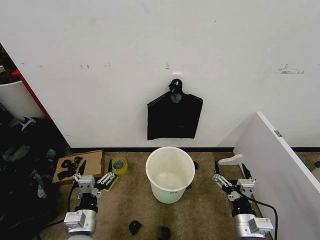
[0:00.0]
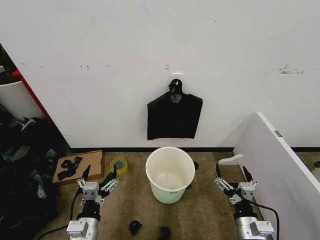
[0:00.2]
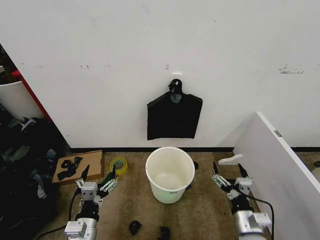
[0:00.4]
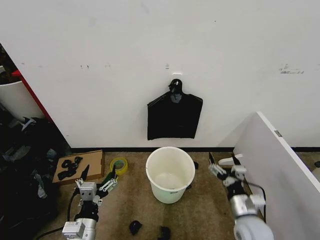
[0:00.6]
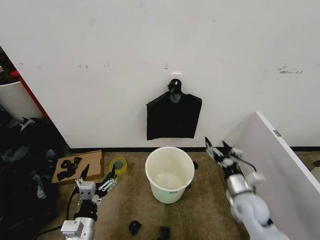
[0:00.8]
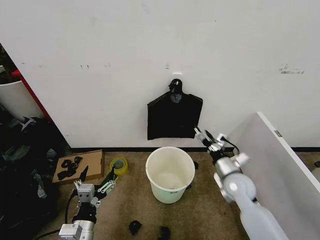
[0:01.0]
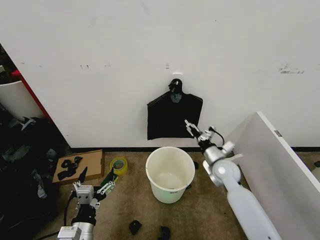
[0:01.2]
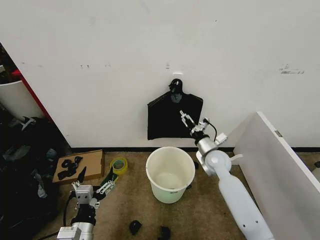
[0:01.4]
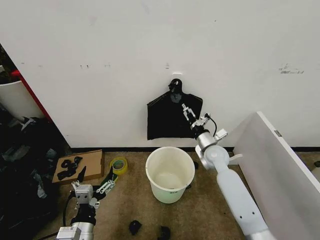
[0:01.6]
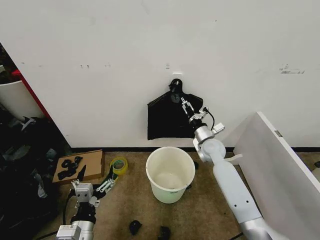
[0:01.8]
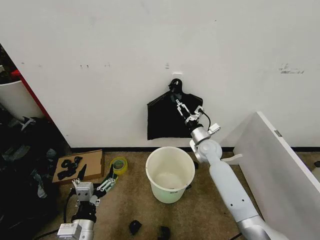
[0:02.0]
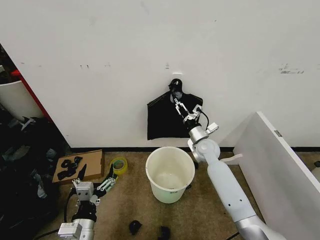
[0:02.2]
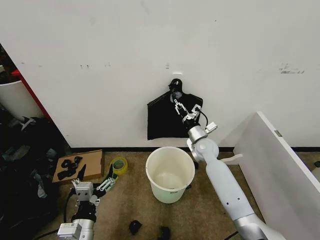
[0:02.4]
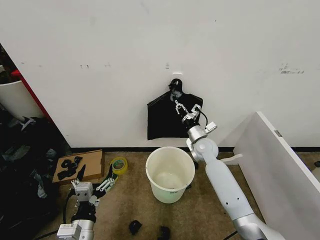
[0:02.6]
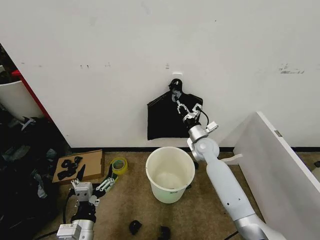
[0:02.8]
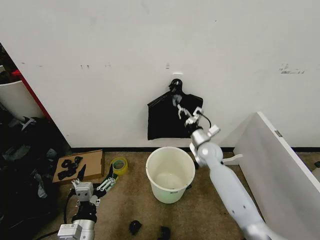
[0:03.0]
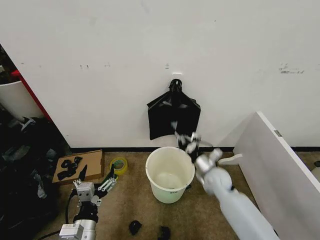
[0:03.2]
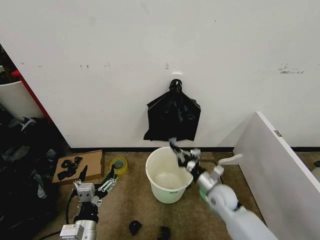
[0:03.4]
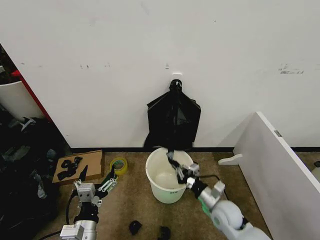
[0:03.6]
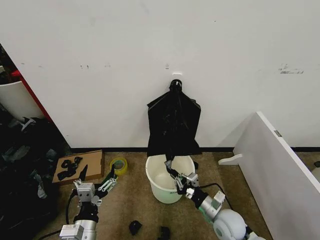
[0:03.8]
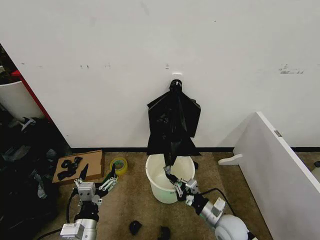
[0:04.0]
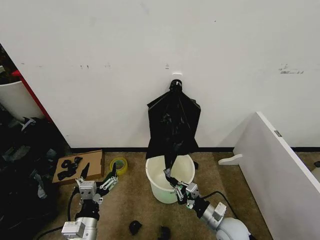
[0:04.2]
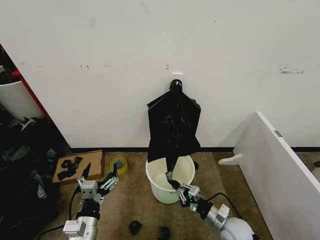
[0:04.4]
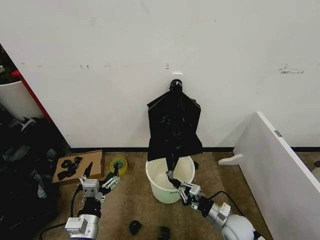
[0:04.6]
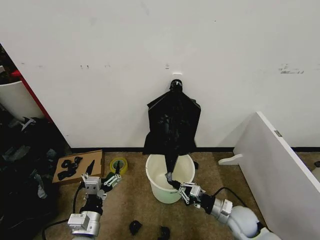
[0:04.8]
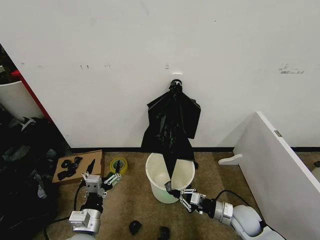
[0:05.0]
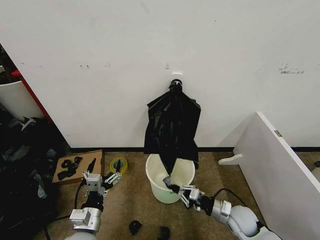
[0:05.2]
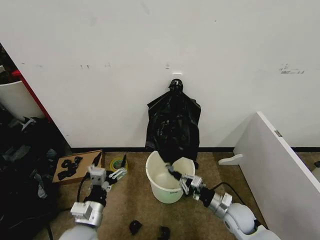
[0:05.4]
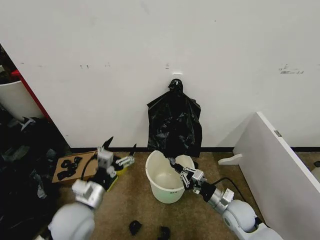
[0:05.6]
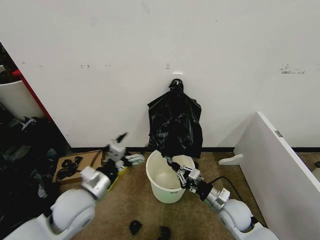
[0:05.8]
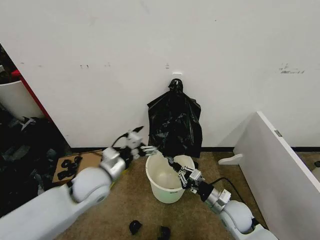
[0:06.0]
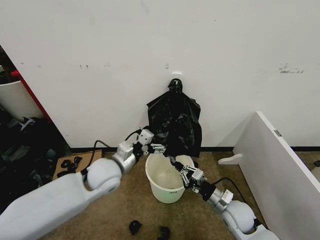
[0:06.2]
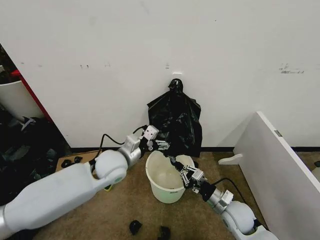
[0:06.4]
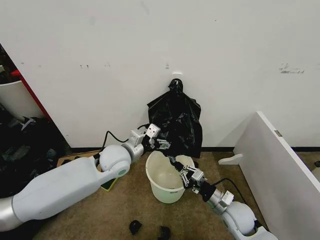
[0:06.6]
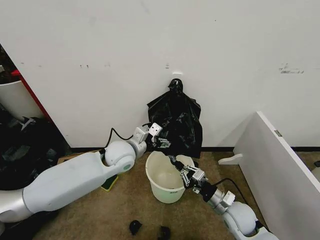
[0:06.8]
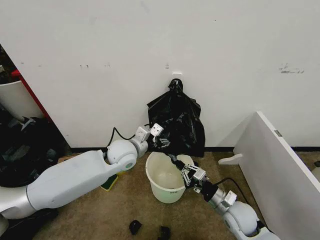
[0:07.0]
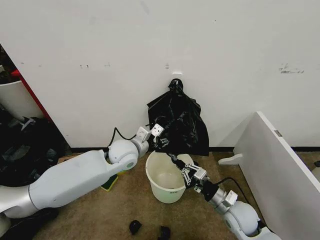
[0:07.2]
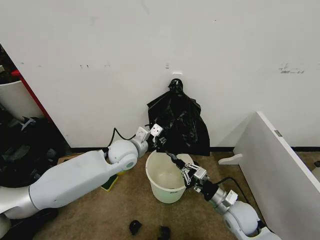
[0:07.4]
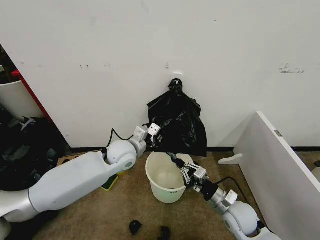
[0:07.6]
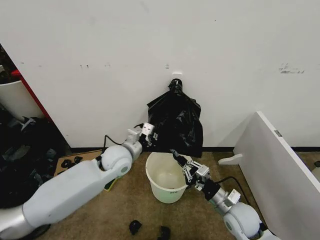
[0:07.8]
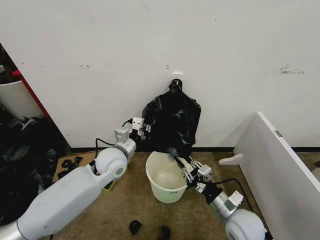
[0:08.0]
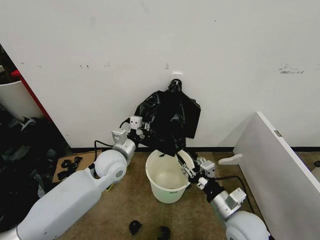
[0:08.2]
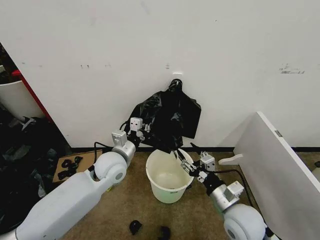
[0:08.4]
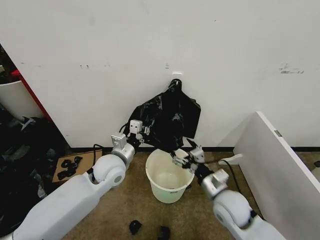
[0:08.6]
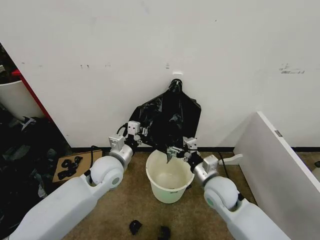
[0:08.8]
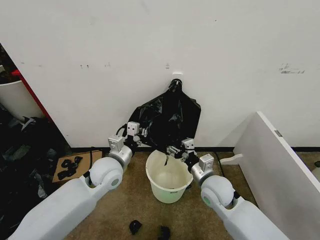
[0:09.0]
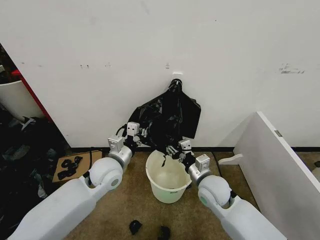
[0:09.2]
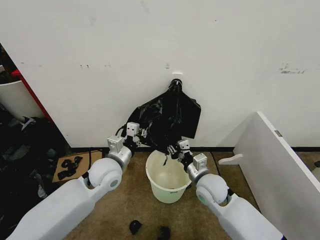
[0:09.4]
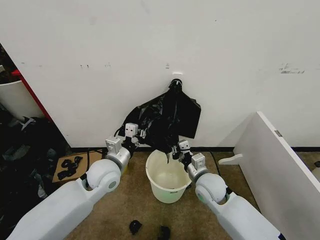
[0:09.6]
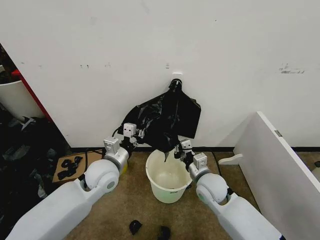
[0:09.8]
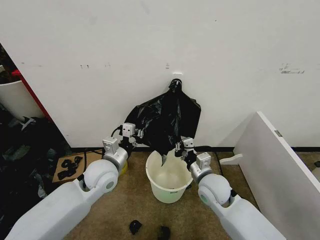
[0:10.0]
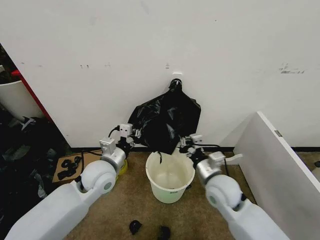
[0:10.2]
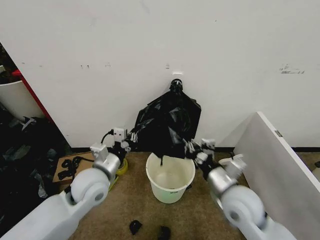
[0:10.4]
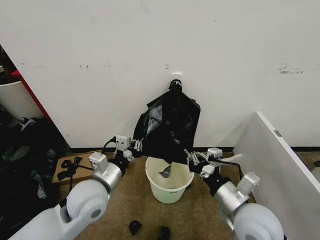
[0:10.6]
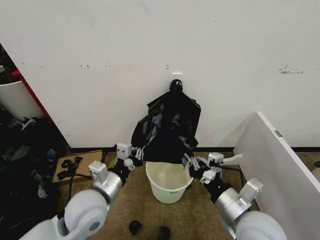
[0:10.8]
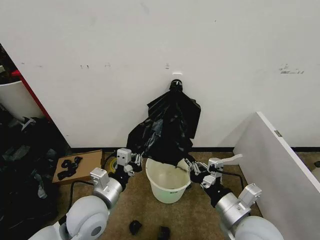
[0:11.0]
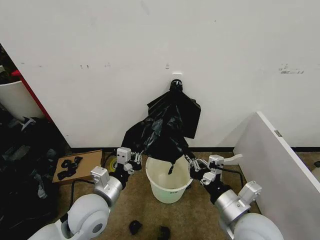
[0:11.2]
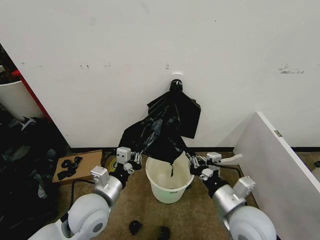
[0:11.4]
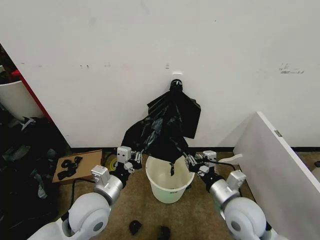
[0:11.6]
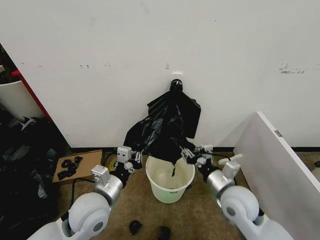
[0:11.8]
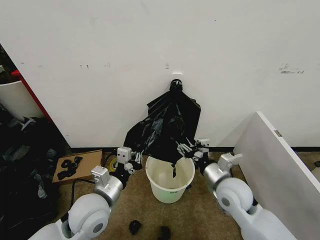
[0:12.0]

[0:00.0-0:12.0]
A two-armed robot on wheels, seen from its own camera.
Task of the whole recording: Place the garbage bag over the trash bin.
0:01.6 to 0:03.0: The right gripper closes.
0:03.0 to 0:04.4: The right gripper is displaced backward and downward by some 25 cm.
0:04.4 to 0:06.0: The right gripper shifts by some 5 cm; the left gripper travels forward and upward by approximately 20 cm.
0:06.0 to 0:07.6: The left gripper is displaced forward and to the right by about 15 cm, and closes.
0:07.6 to 0:09.0: The right gripper travels to the left, upward and forward by some 10 cm, and opens up, while the left gripper heads backward, covering some 5 cm.
0:09.0 to 0:10.4: The right gripper moves backward and upward, some 10 cm, and closes; the left gripper shifts some 5 cm backward.
0:10.4 to 0:12.0: The left gripper shifts some 5 cm backward; the right gripper ends up some 5 cm from where it was, and opens.

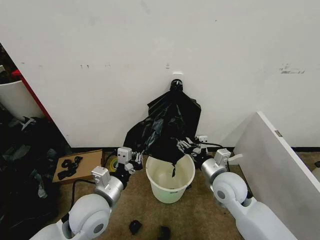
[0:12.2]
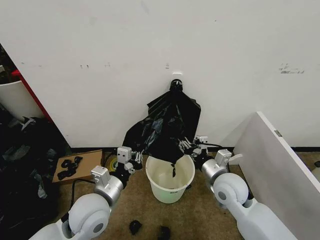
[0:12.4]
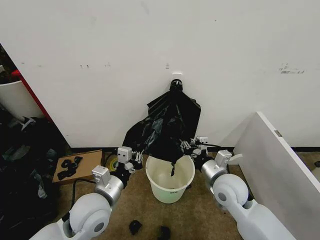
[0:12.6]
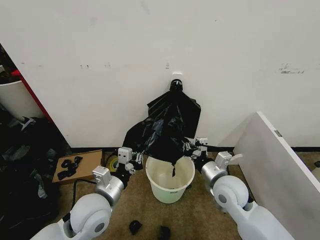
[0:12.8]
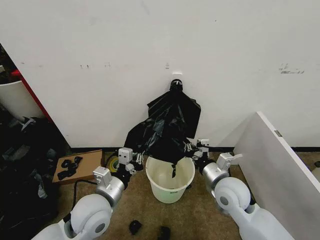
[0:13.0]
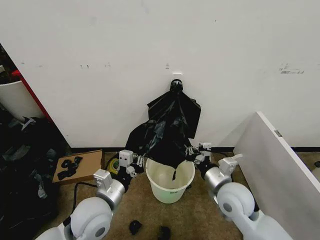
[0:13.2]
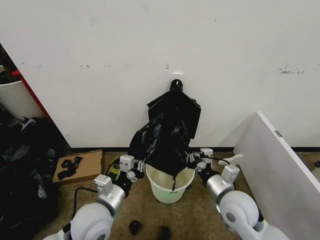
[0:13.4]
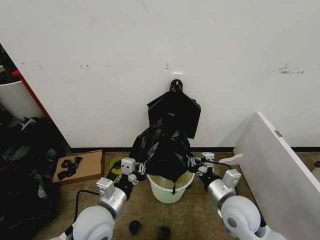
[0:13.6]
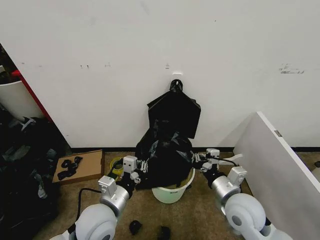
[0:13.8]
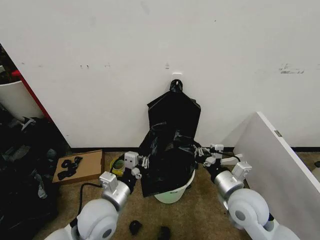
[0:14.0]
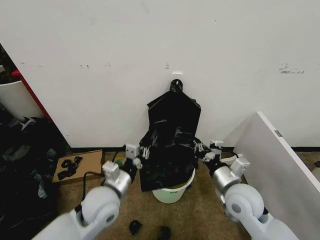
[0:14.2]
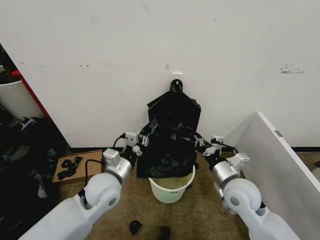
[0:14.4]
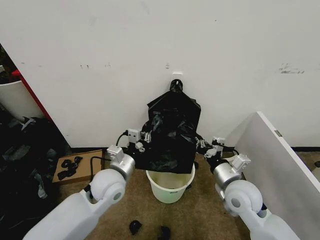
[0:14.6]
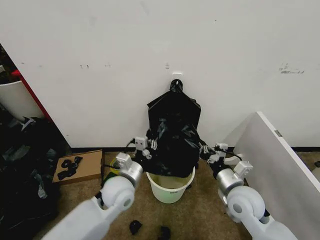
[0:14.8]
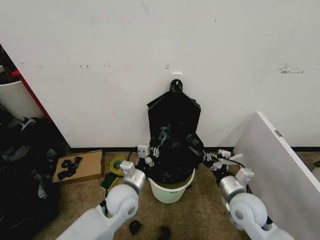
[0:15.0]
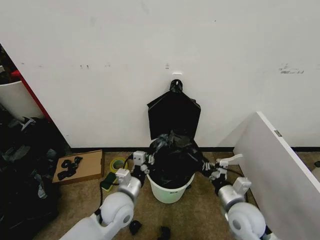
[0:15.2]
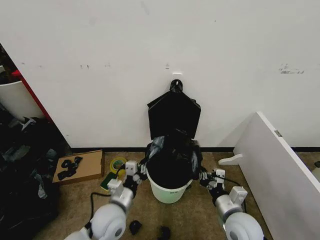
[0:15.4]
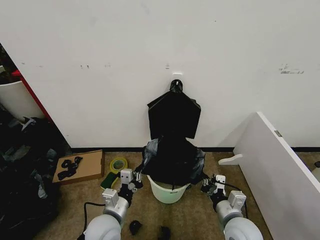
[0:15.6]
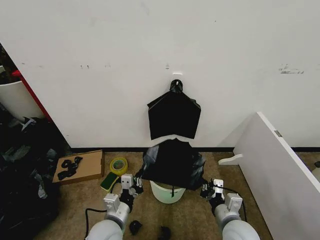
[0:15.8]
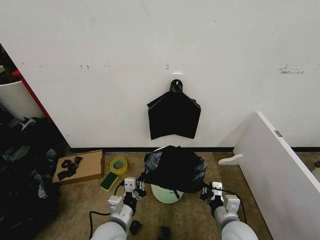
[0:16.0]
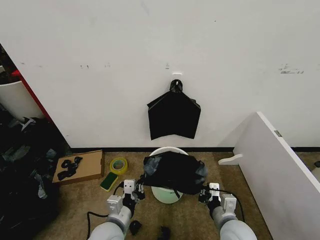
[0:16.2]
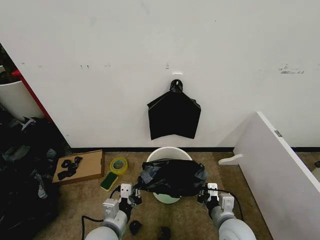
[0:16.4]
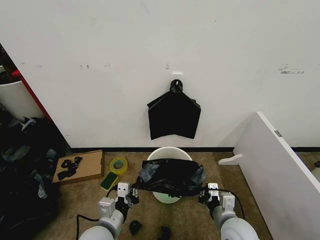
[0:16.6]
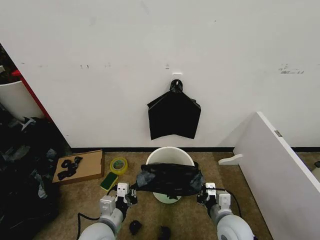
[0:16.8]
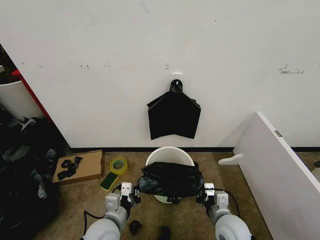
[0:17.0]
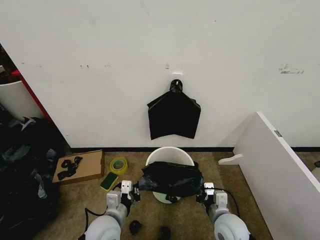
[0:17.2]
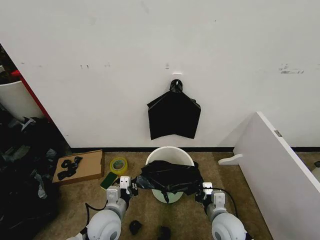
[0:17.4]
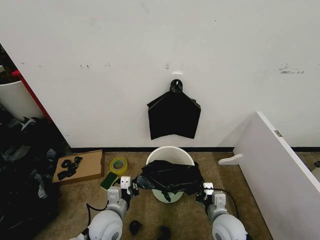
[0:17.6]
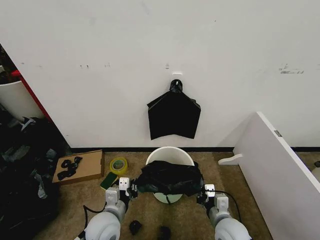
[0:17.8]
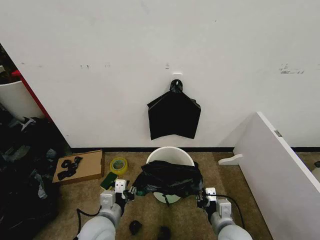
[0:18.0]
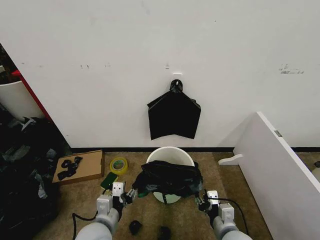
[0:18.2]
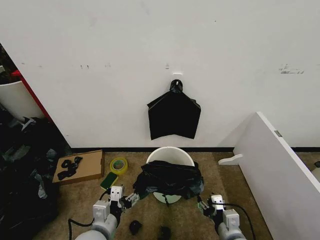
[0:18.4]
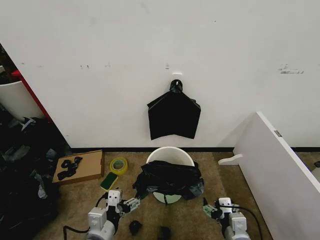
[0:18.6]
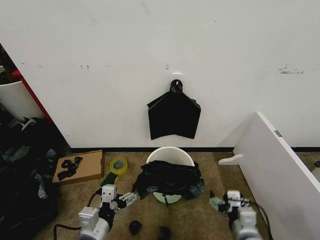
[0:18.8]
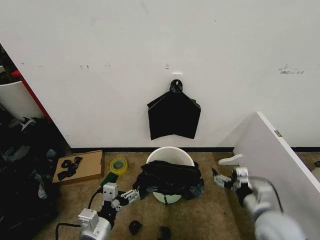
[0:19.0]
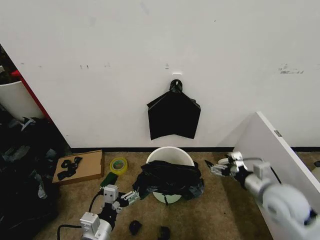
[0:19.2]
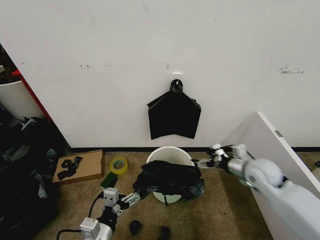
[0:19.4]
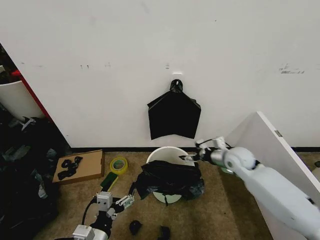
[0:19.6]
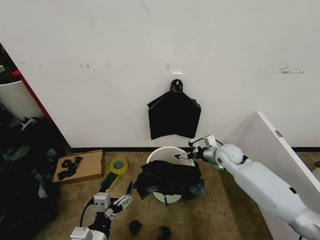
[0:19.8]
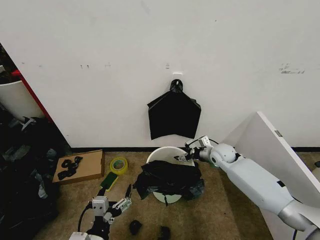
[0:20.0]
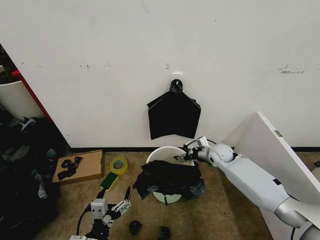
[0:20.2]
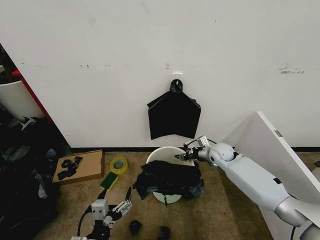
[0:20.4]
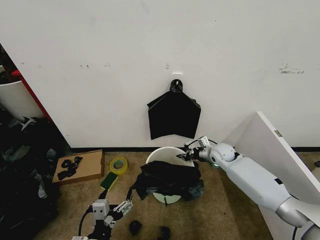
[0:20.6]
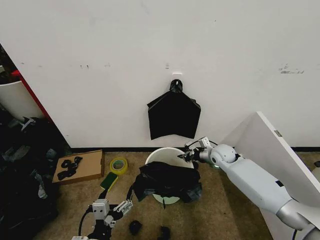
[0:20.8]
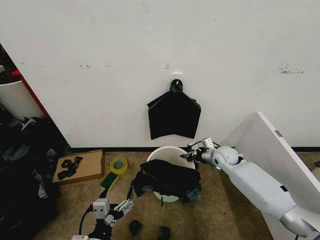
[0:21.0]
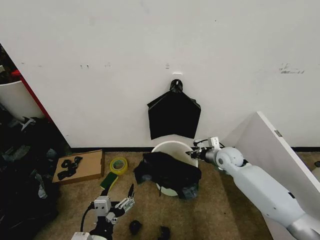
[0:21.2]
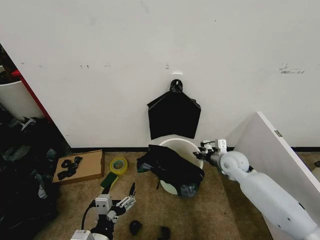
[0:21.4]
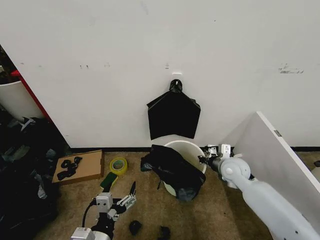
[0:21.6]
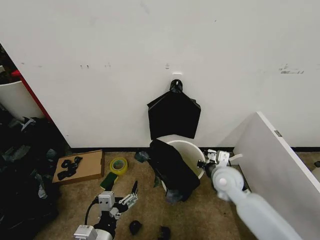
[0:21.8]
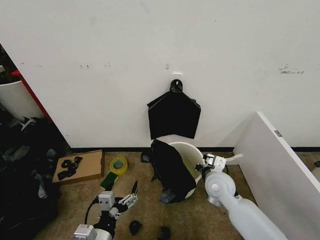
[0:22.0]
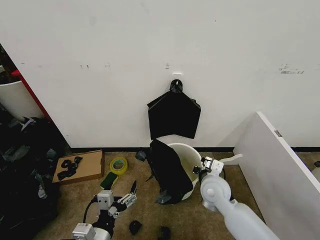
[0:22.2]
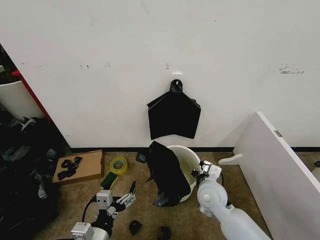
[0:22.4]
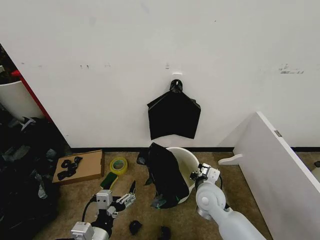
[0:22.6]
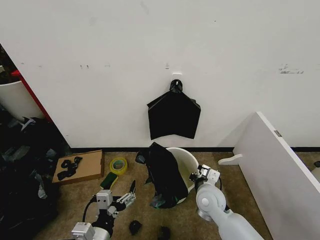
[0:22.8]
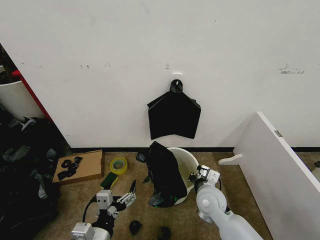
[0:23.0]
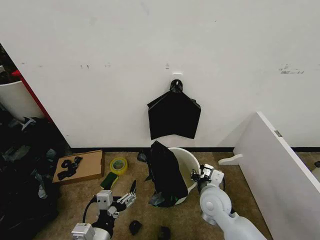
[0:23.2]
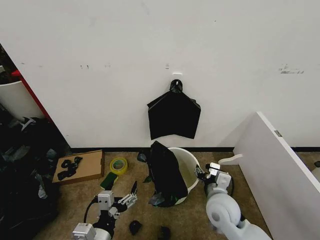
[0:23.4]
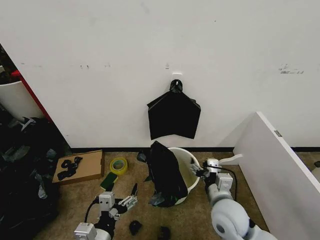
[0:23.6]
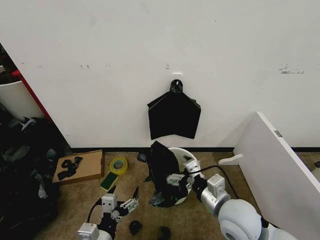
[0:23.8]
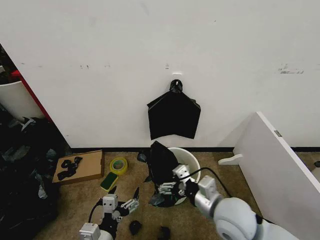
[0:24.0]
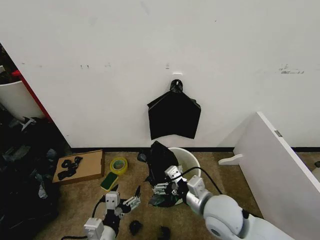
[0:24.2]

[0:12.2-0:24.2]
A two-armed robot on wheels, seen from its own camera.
Task of the whole recording: Place the garbage bag over the trash bin.
0:12.2 to 0:13.8: The right gripper heads backward, covering about 5 cm, and closes its fingers.
0:13.8 to 0:15.2: The grippers both shift downward by some 5 cm.
0:15.2 to 0:16.6: The left gripper shifts roughly 10 cm backward.
0:16.6 to 0:18.2: The right gripper opens. The left gripper opens its fingers.
0:18.2 to 0:19.8: The right gripper travels forward by roughly 30 cm, and opens its fingers. The left gripper shifts approximately 5 cm backward, and opens.
0:19.8 to 0:21.2: The right gripper closes up.
0:21.2 to 0:22.6: The right gripper heads backward and to the left, covering some 20 cm.
0:22.6 to 0:24.2: The right gripper moves upward and backward, some 10 cm, and opens its fingers.
